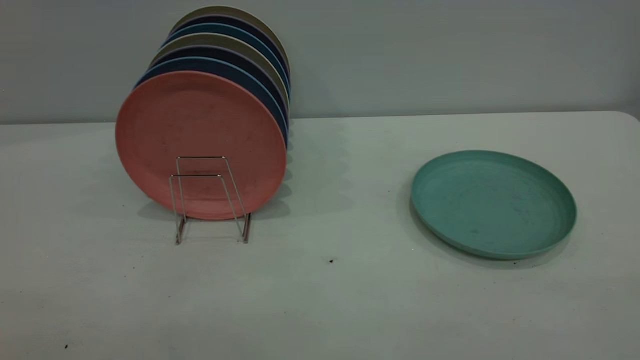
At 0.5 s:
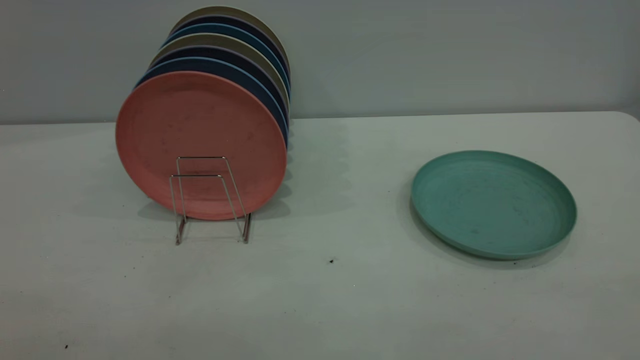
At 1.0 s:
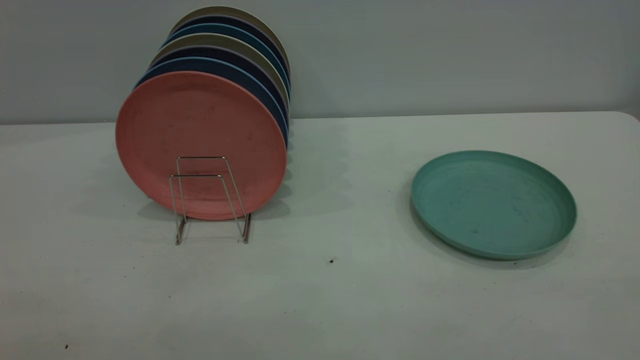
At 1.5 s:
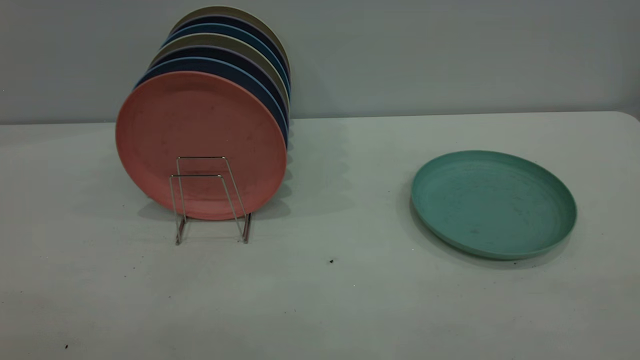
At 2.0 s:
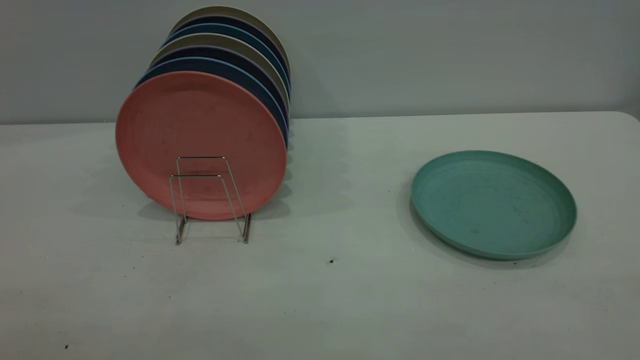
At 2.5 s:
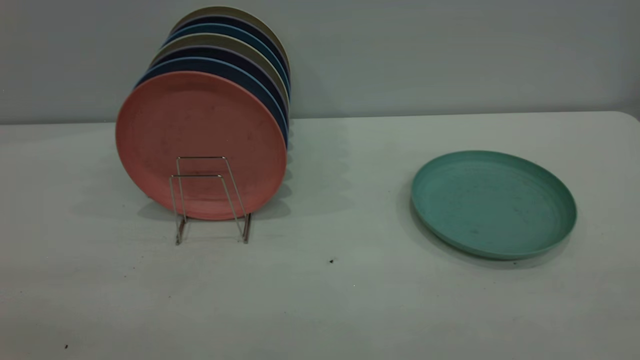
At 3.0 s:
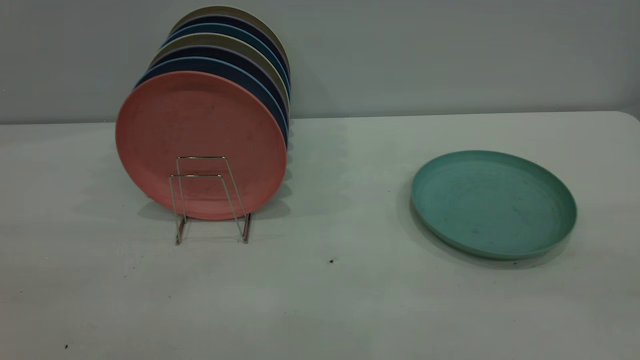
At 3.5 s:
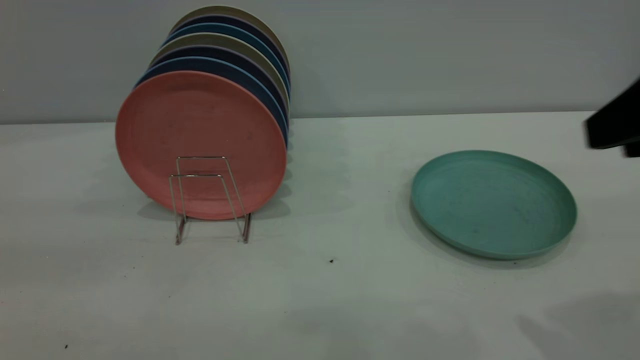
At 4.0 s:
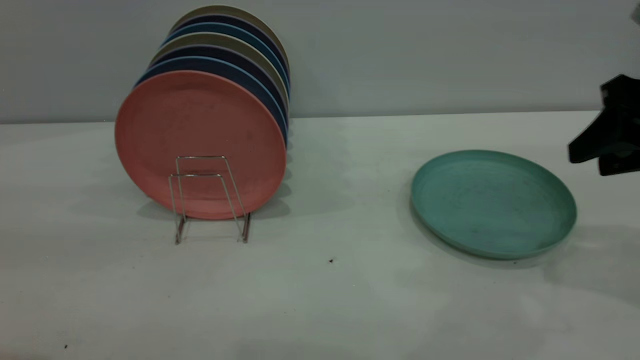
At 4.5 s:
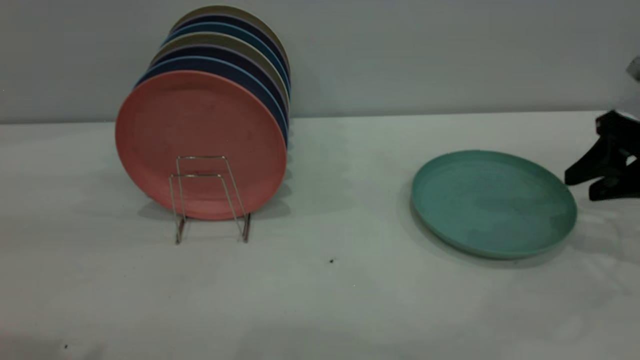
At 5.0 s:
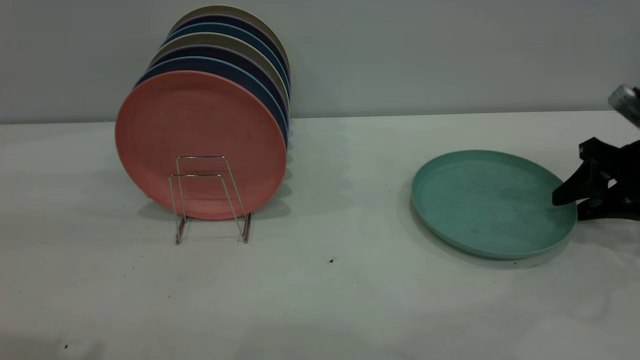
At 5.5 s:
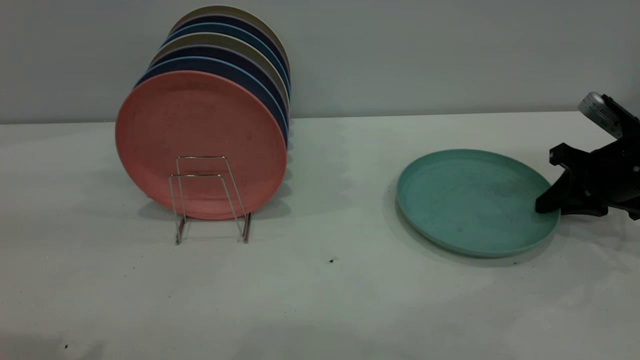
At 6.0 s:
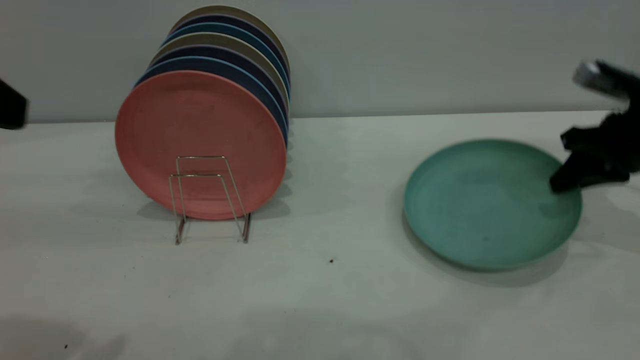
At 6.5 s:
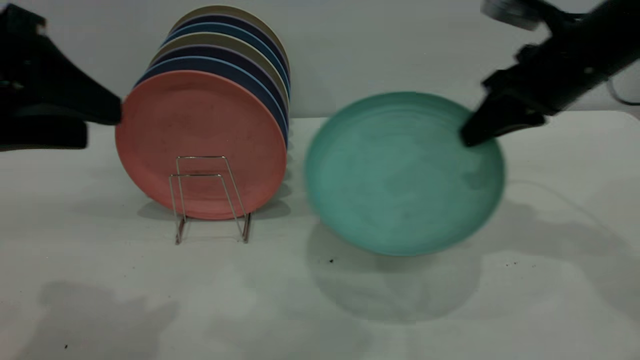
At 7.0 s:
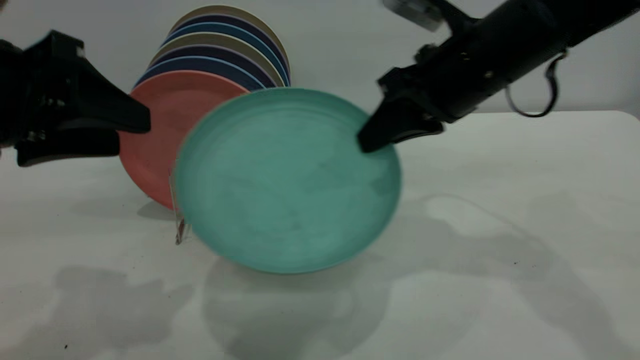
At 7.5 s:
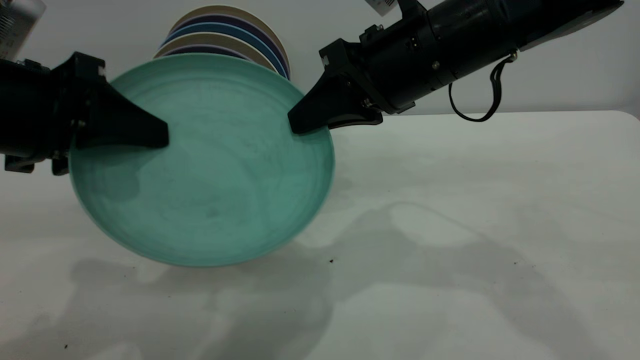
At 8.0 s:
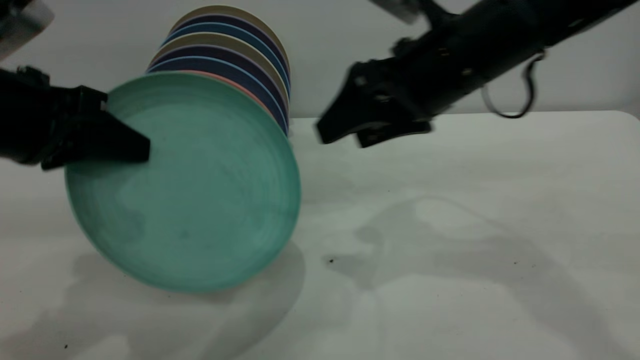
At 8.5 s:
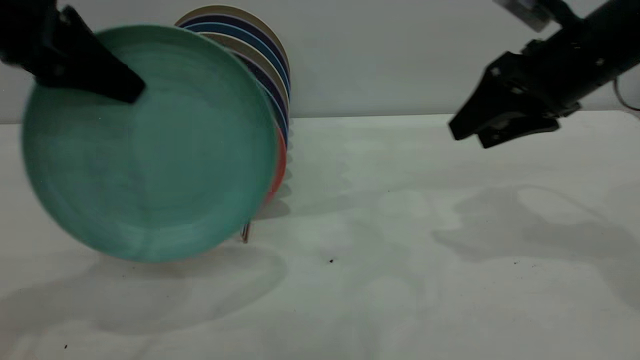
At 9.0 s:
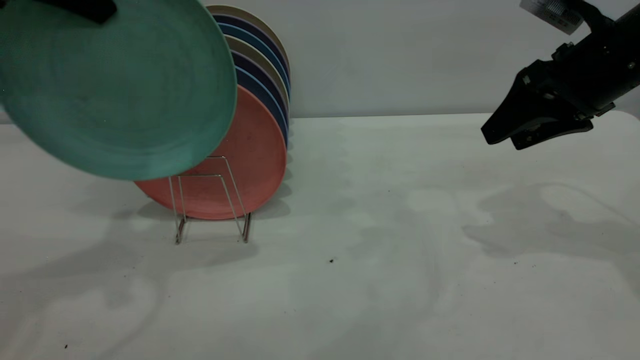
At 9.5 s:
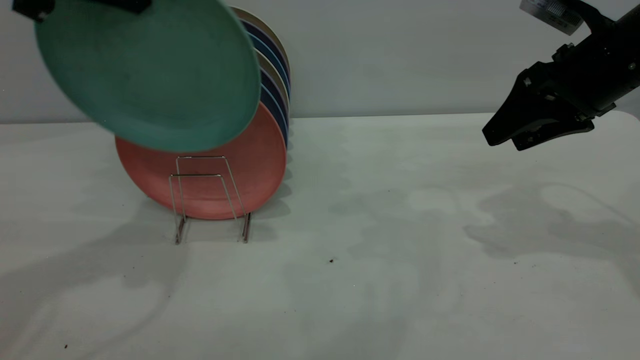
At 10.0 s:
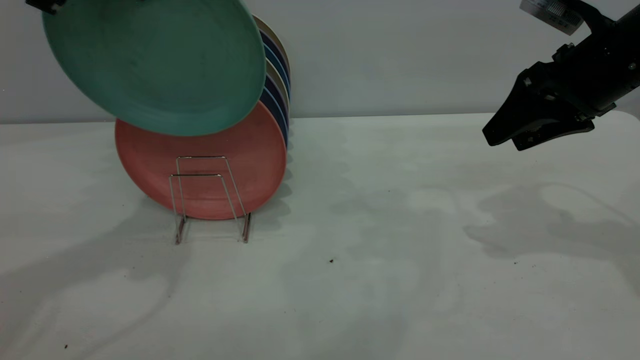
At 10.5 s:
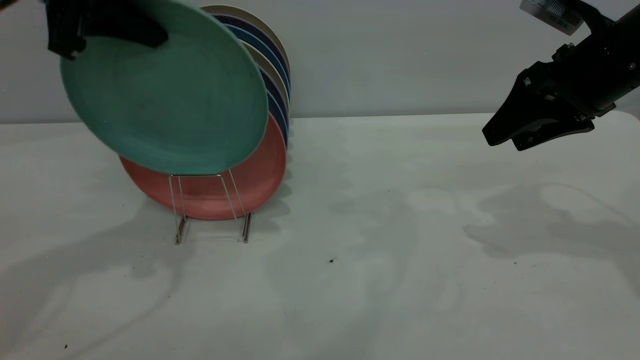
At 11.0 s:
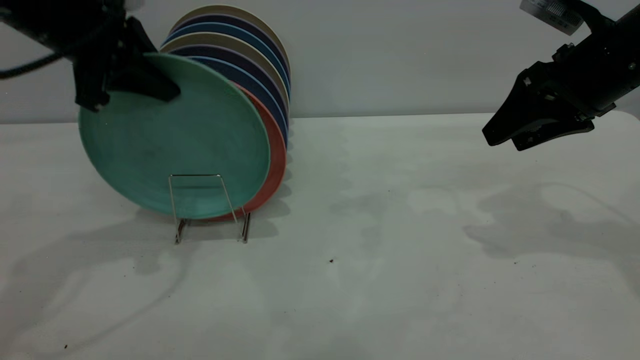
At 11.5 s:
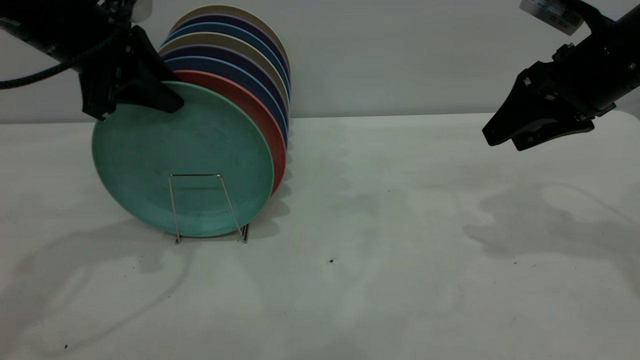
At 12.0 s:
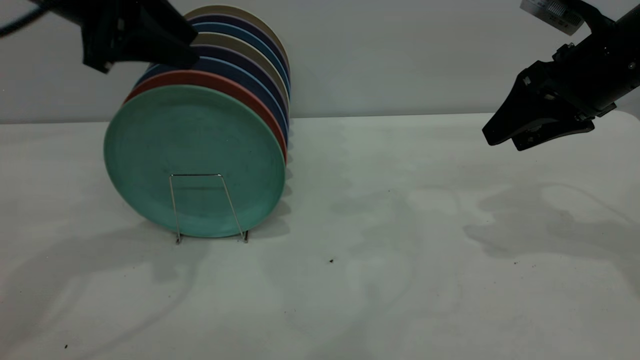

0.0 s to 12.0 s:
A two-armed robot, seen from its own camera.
Task of the whole recording: the right gripper grasp the green plate, the right gripper pass the green plate to the left gripper, and the left gripper place the green plate on the plate rack.
Step, 0.0 to 6.0 s: Pick up the plate with the right gripper.
Step, 6.5 to 7.5 s: Pass the plate from the right gripper to the left gripper.
2.0 to 4.0 s: The right gripper goes some 35 cm forward and downward.
4.0 to 6.0 s: The right gripper heads forward and downward, covering approximately 10 cm, and closes its fingers.
6.0 to 8.0 s: The right gripper is displaced to the left by roughly 20 cm, and opens up. The left gripper is displaced downward and forward by roughly 10 cm, and closes up.
8.0 to 10.0 s: The left gripper shifts roughly 15 cm upward and forward. Meanwhile the right gripper travels to the right by some 15 cm.
10.0 to 12.0 s: The left gripper opens.

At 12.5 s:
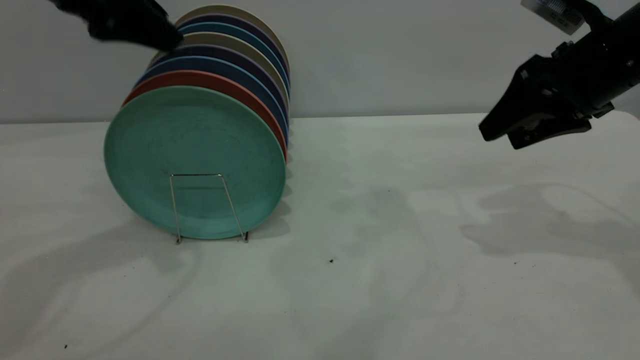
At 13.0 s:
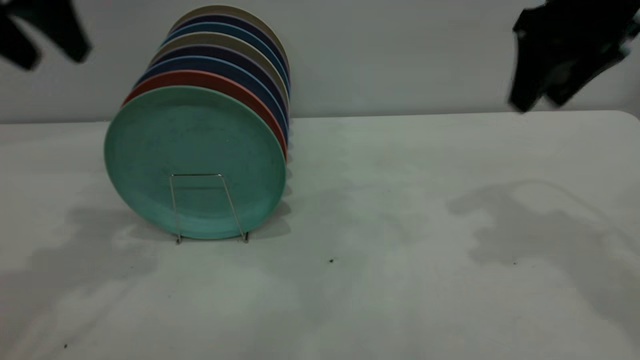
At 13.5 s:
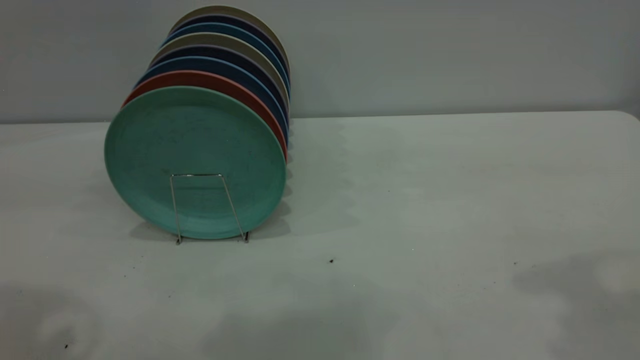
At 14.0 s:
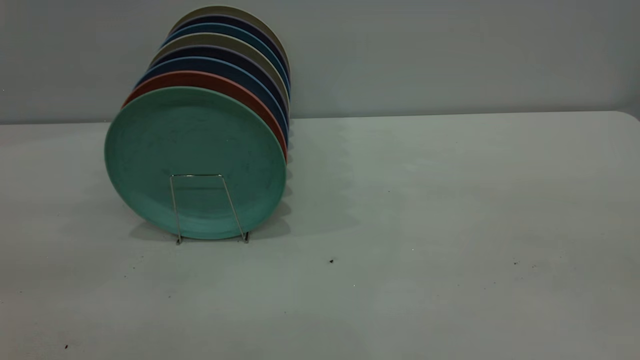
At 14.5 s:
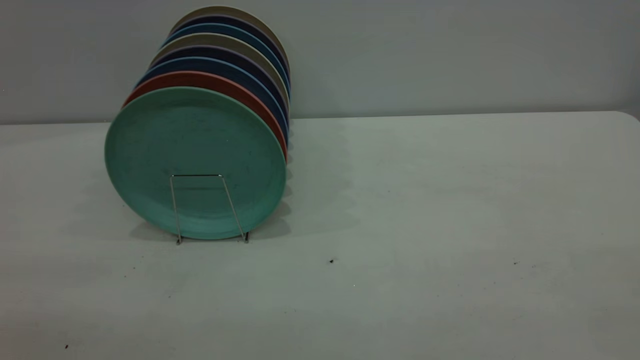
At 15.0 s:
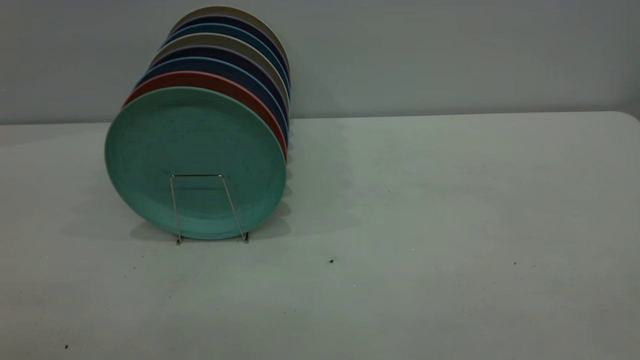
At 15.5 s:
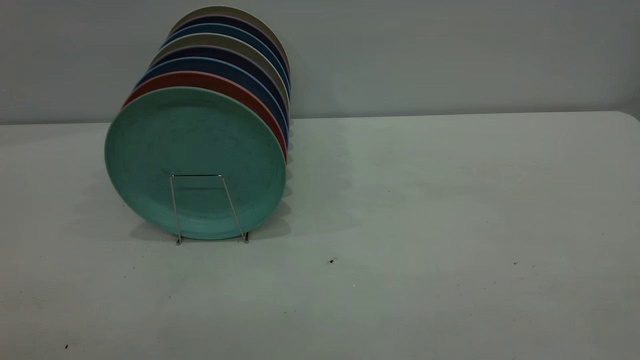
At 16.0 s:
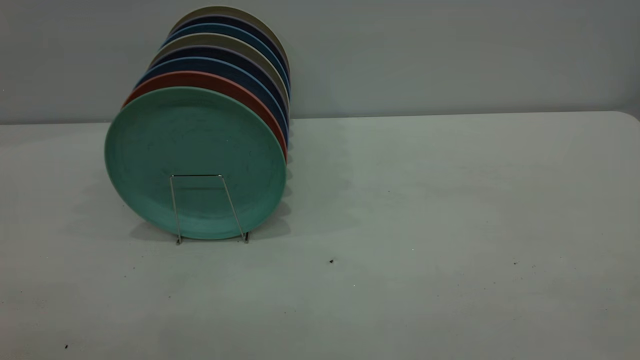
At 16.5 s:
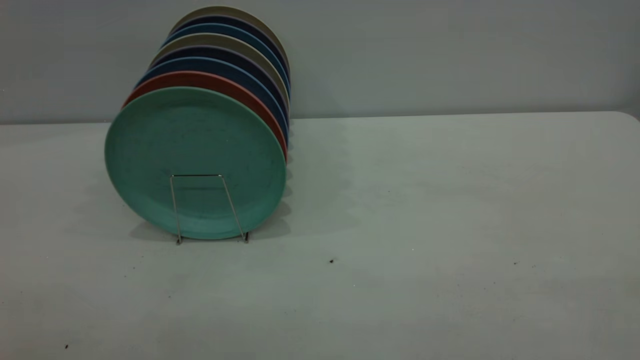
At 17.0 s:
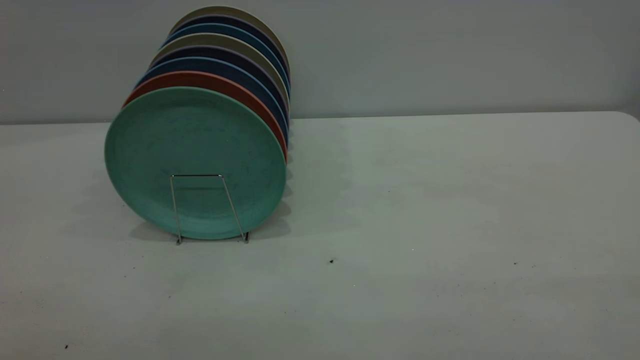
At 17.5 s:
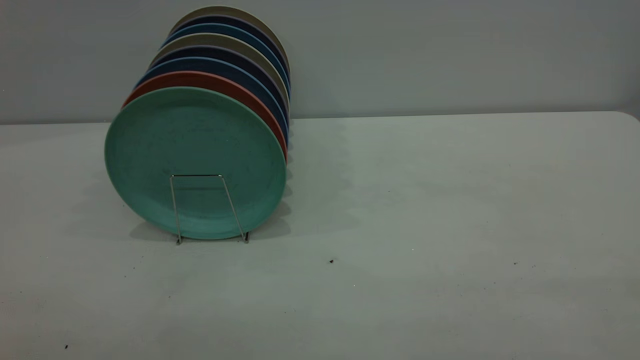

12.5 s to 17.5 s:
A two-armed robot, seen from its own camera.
Task of the whole recording: the right gripper grasp the green plate, the right gripper pass the green plate to the left gripper, and the left gripper place the green plate on the plate rack.
12.5 to 15.0 s: The grippers both shift backward by approximately 40 cm.
